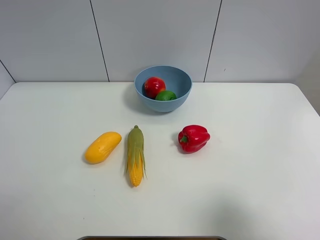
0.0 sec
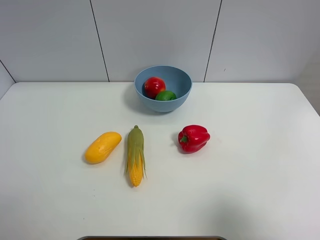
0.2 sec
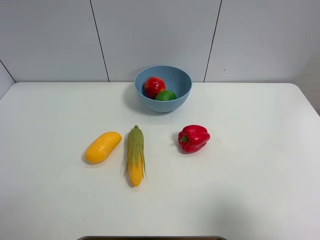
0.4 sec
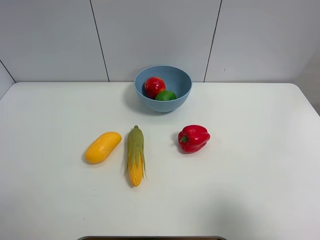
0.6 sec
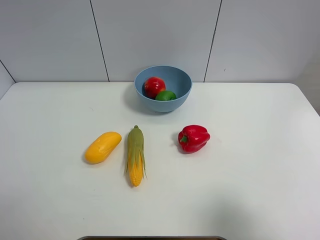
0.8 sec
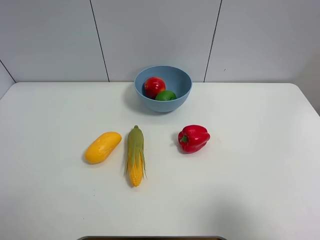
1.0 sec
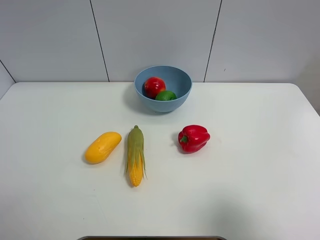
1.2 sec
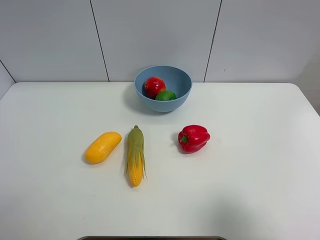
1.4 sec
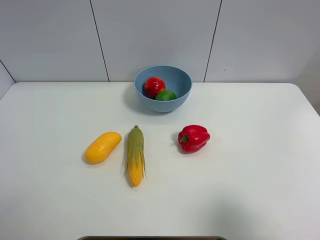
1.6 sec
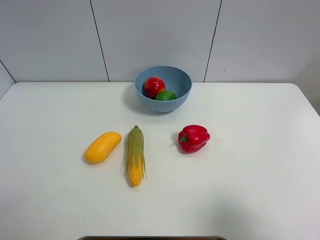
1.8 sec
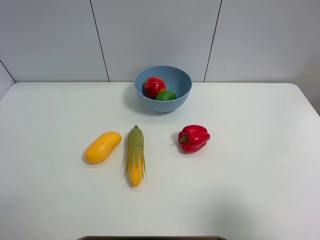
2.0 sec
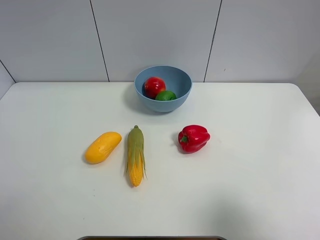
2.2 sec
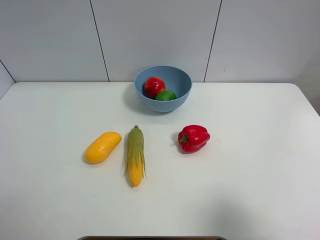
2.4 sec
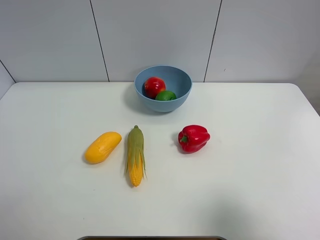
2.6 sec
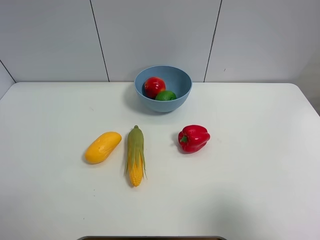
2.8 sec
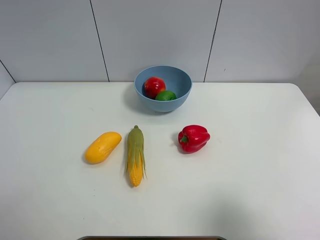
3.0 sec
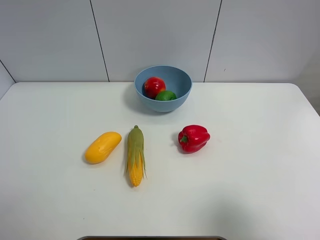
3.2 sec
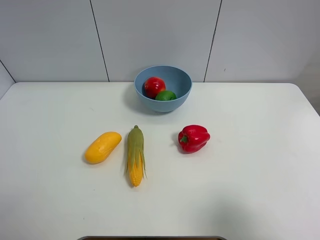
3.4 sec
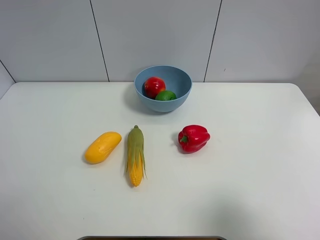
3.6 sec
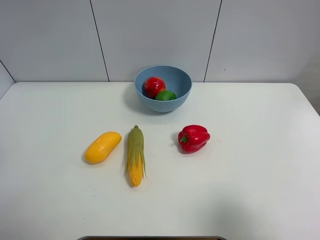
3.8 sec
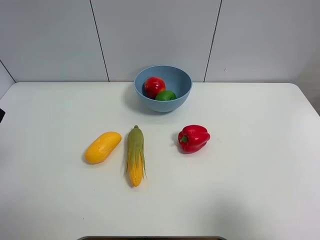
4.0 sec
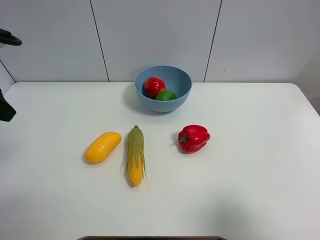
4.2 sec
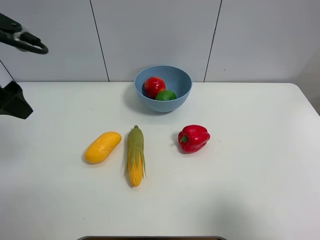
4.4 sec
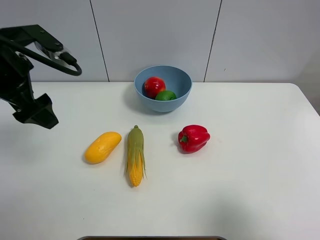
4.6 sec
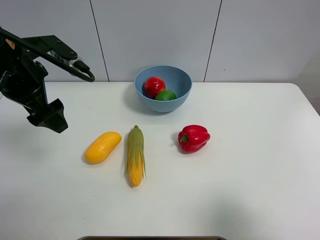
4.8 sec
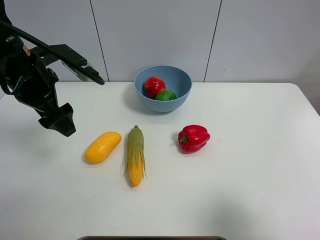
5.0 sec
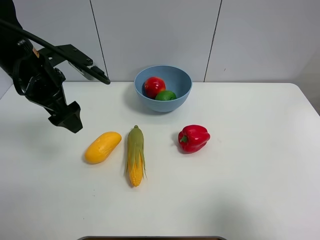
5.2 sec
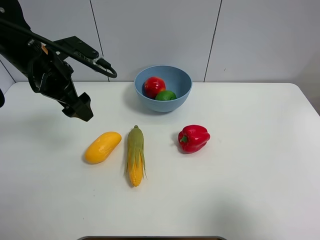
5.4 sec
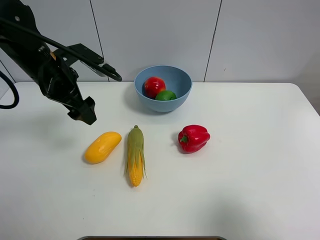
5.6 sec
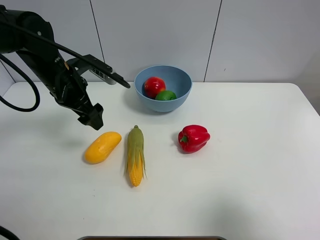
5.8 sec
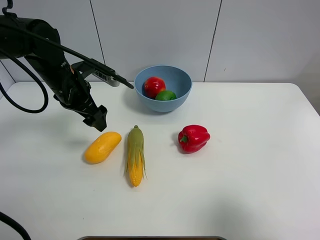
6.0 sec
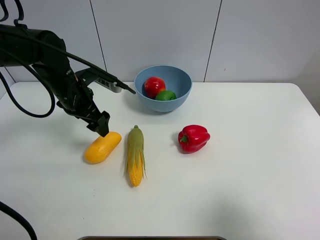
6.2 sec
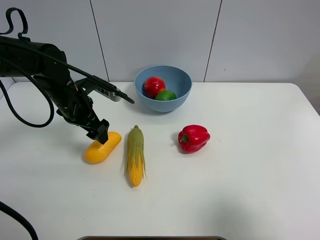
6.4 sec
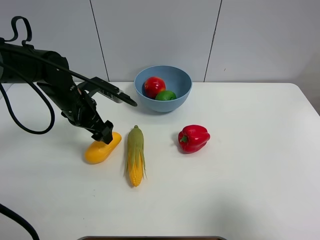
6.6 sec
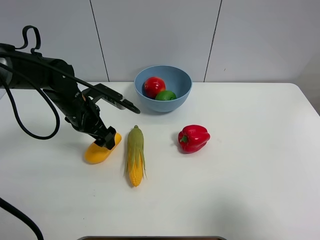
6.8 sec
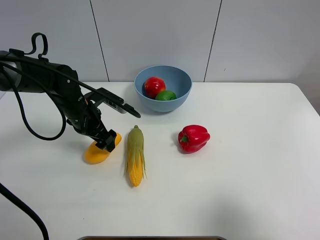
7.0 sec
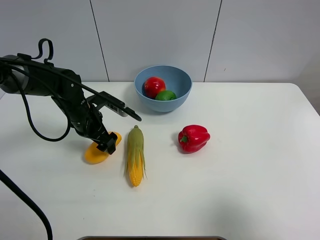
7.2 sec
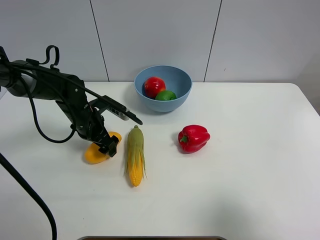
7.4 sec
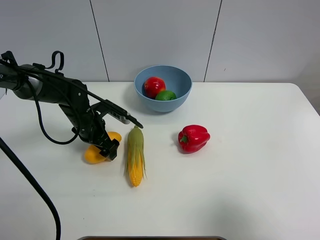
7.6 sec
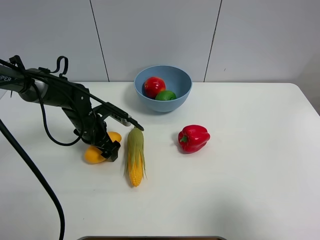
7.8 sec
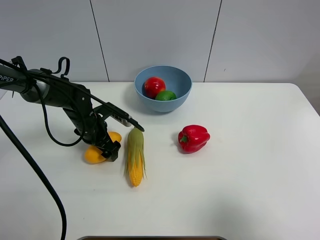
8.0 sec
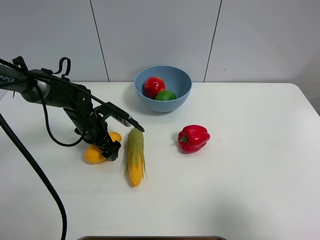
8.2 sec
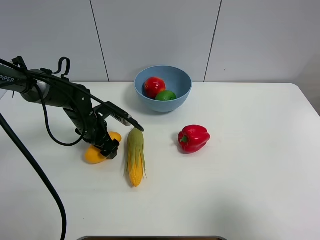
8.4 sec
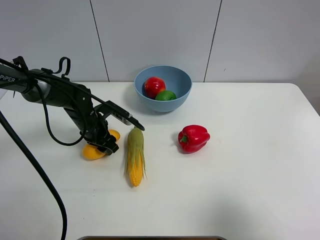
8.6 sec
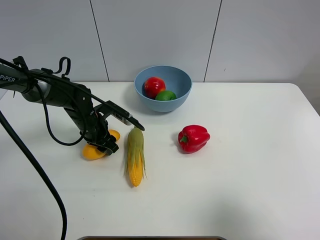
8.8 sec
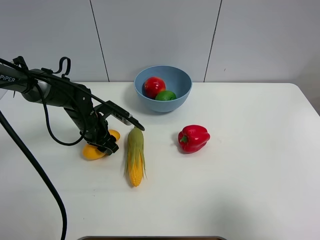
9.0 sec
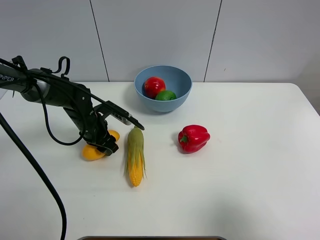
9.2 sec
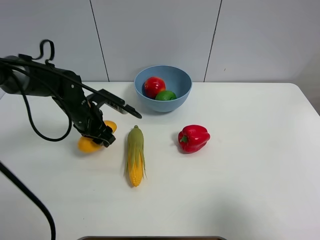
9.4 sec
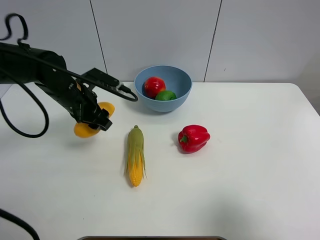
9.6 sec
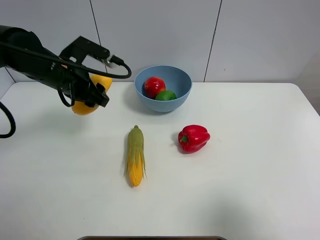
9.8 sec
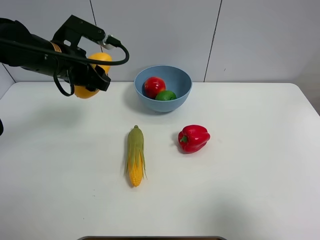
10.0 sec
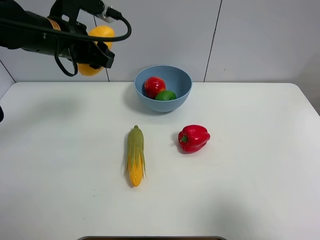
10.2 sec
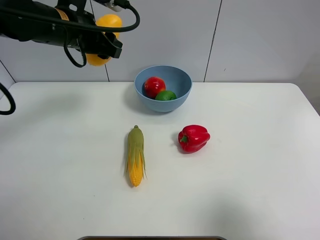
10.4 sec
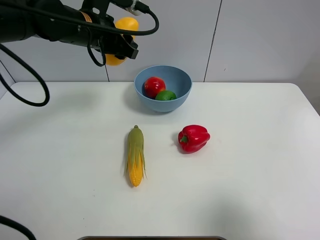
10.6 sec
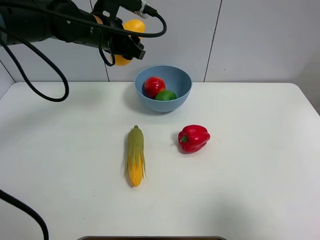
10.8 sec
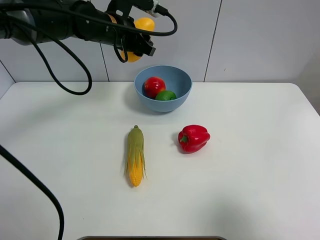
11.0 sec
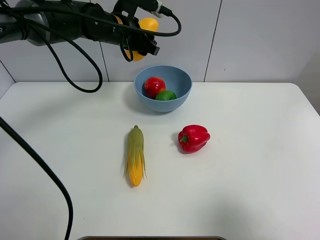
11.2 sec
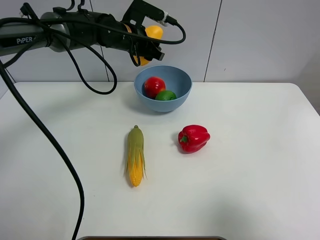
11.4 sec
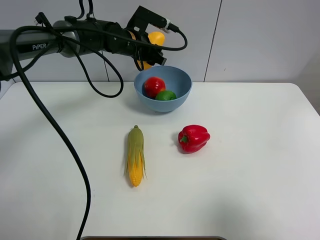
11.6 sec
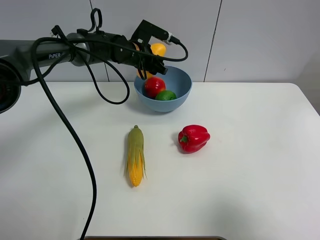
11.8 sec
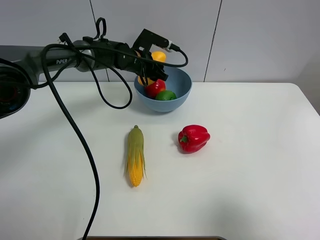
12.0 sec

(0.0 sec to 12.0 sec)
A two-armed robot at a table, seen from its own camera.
Task of the whole recording: Put the three fruits on the table into a bowl.
Step, 0.0 sec - 8.6 sec: Grasp the mango with left gripper.
0.0 sec - 1.6 sec: Neither gripper changes place.
3.0 sec - 4.4 sec: The left gripper travels forward by approximately 20 cm, and opens up.
4.4 sec - 6.0 sec: The left gripper is displaced downward, forward and to the right by roughly 20 cm.
6.0 sec - 7.6 sec: The left gripper shifts about 10 cm downward.
7.6 sec - 9.0 sec: The left gripper closes.
9.0 sec - 10.4 sec: The left gripper travels upward by roughly 25 cm.
10.4 sec - 12.0 sec: The left gripper goes about 20 cm downward, forward and to the right.

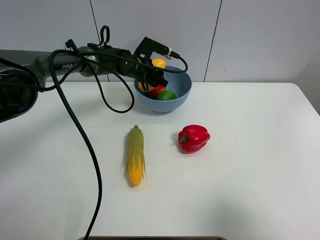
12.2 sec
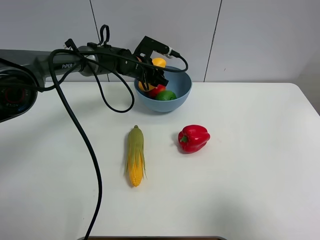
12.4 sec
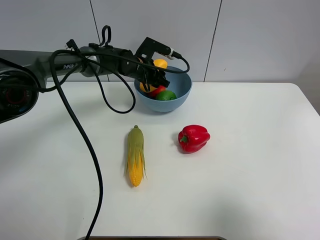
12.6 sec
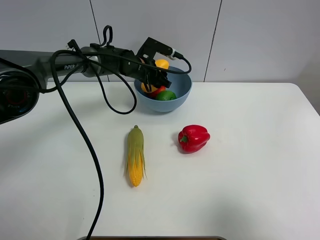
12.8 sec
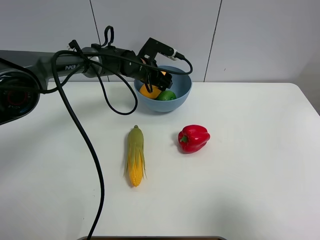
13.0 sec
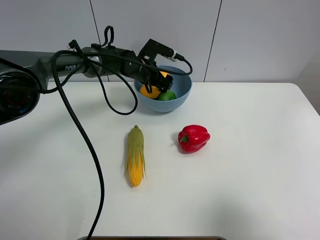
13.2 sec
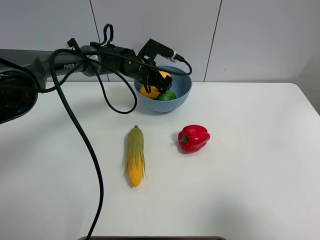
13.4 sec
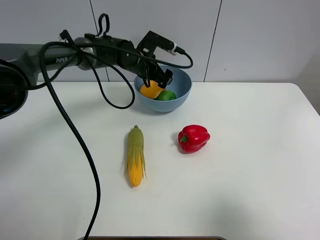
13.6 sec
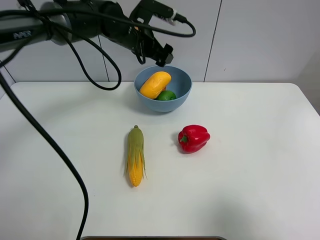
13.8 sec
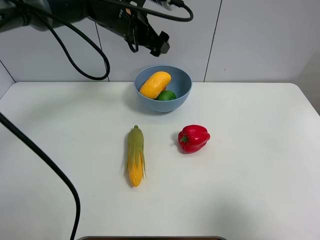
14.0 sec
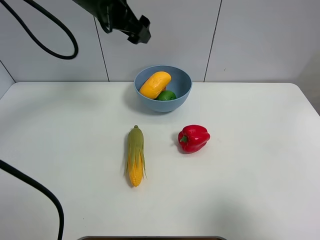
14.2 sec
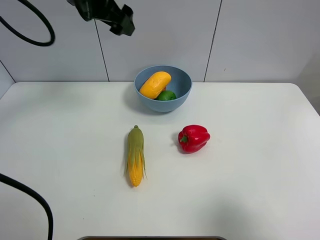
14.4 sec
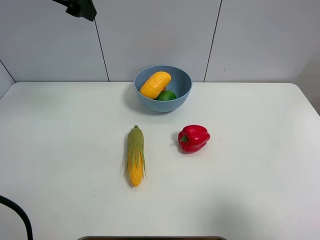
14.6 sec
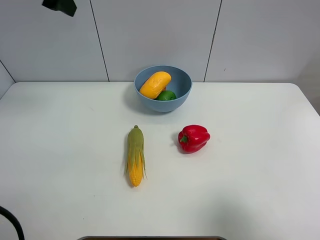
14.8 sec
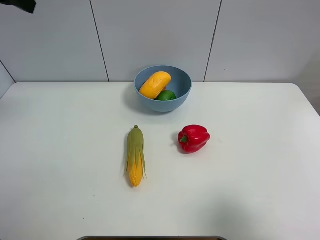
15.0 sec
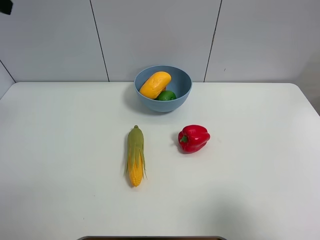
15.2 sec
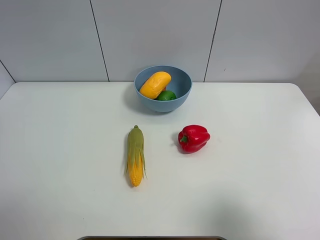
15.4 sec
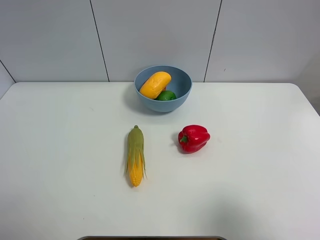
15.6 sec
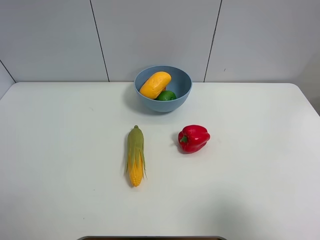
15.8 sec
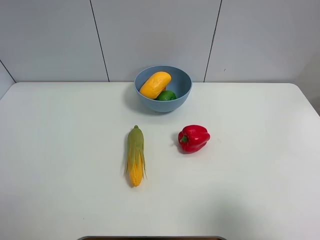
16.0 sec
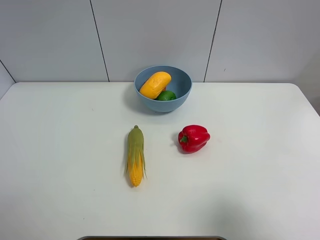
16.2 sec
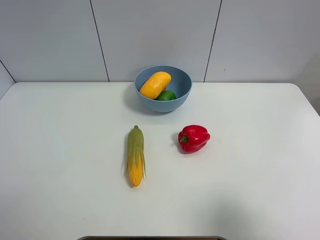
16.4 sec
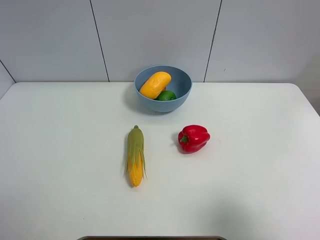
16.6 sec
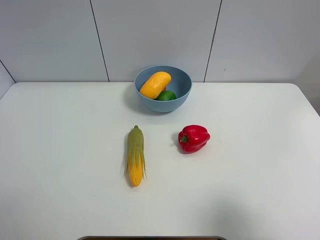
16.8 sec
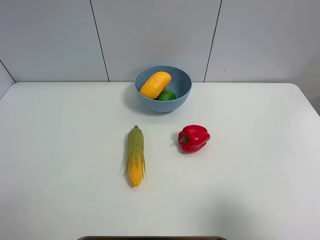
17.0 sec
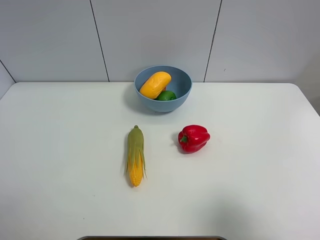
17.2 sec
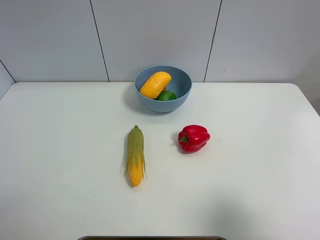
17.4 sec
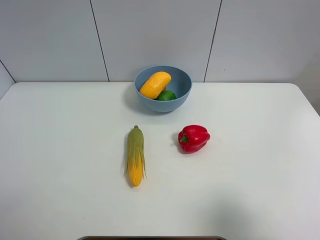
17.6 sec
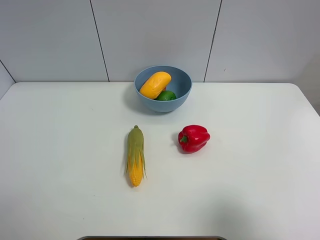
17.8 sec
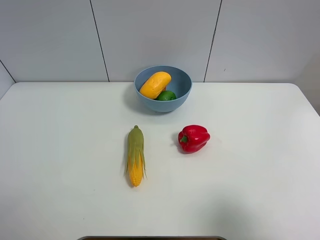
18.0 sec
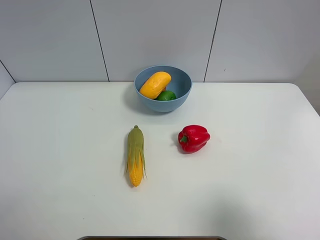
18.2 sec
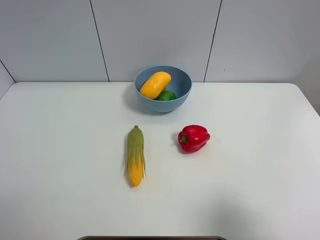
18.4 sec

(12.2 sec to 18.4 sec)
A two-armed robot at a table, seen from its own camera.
Task of the whole recording: Put the three fruits on the table into a bowl.
12.2 sec - 13.8 sec: The left gripper travels upward by about 10 cm, and opens its fingers.
13.8 sec - 15.4 sec: The left gripper is displaced to the left, backward and upward by some 40 cm.
